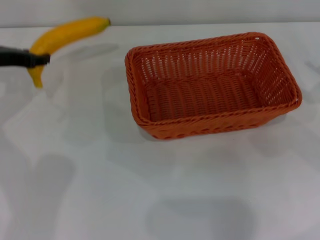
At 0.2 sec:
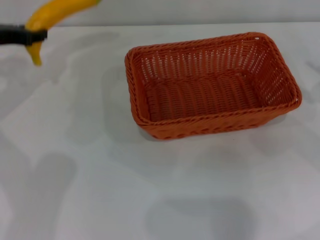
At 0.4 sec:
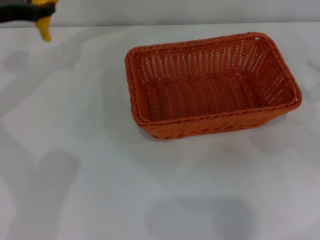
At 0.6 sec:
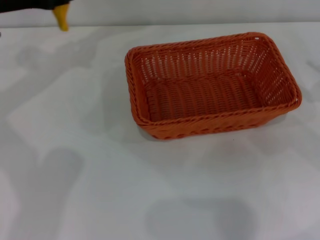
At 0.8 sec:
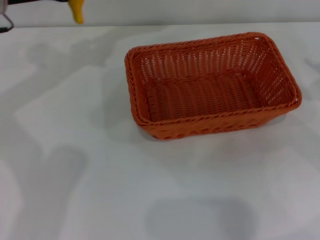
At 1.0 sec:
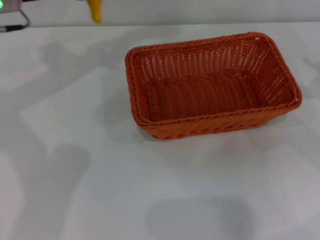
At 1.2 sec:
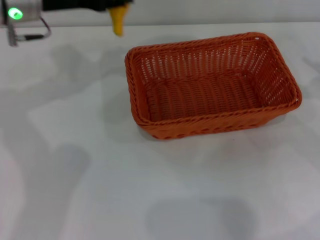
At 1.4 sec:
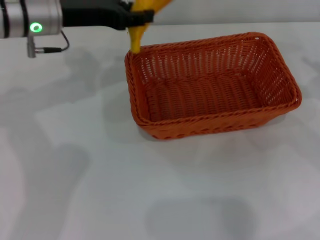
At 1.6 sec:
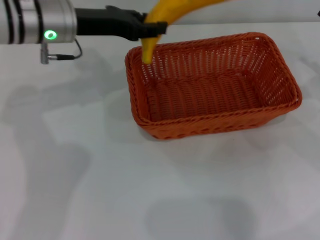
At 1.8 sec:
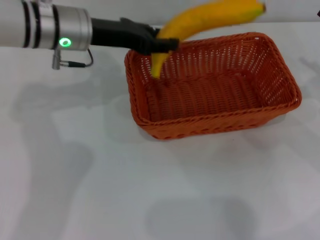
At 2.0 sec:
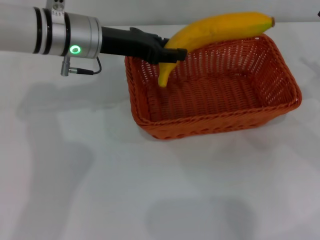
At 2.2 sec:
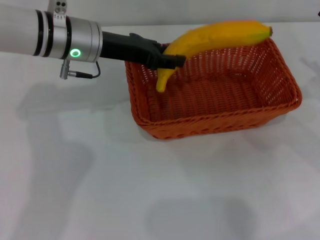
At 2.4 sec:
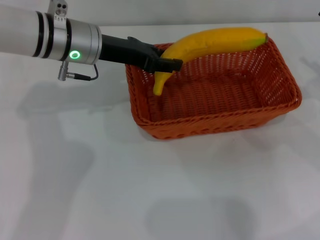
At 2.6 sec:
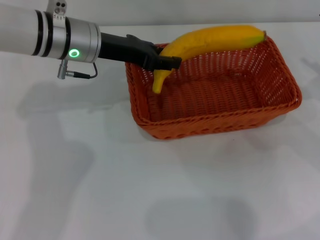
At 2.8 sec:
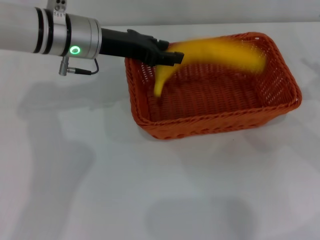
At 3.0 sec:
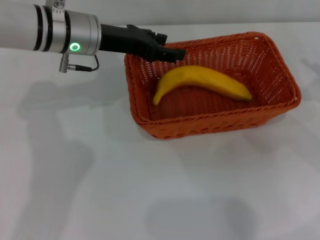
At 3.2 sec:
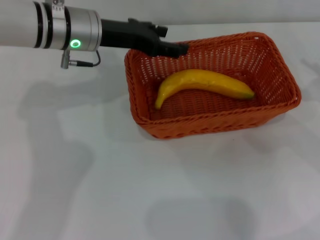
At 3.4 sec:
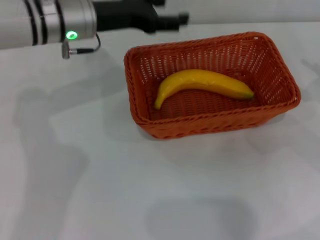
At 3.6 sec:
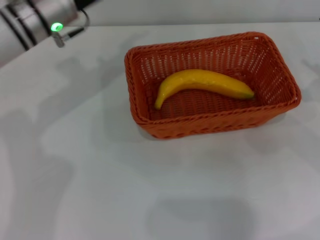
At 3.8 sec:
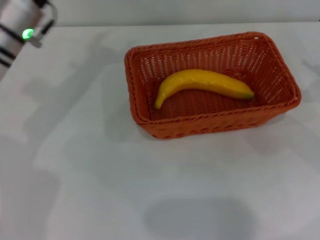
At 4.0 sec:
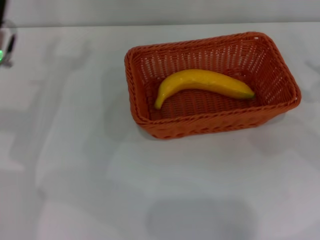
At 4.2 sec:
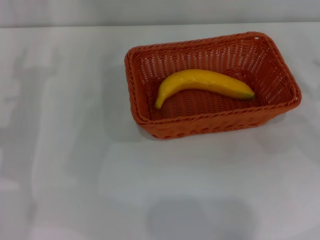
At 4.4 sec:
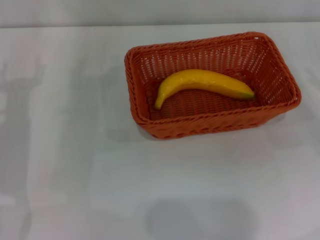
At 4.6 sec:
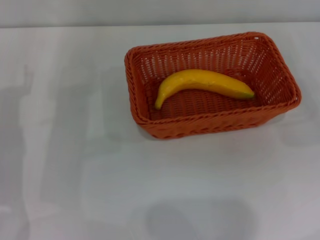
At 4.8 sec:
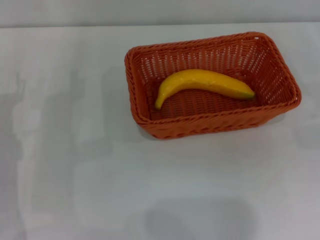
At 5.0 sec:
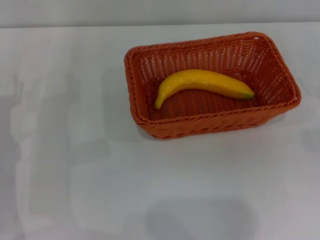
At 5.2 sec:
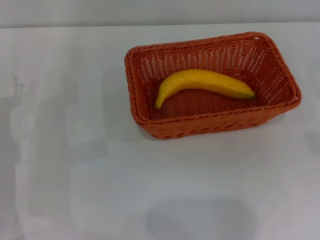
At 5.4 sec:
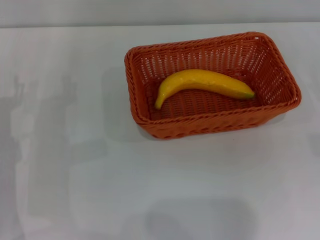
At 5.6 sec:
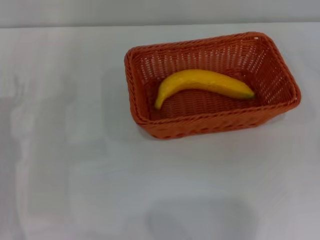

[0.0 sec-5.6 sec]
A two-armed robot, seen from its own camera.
Step, 0.2 sec to 3.2 sec: Place the banana into the light basket with the left gripper.
0.0 sec to 1.4 sec: The left gripper heads to the right, covering some 10 cm.
1.4 sec to 2.8 sec: The left gripper shifts by some 5 cm.
2.8 sec to 4.2 sec: The left gripper heads to the left, backward and downward, covering approximately 15 cm, and opens up.
